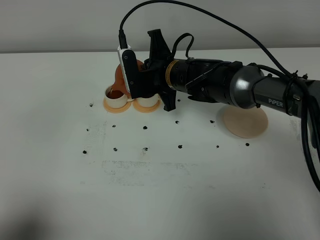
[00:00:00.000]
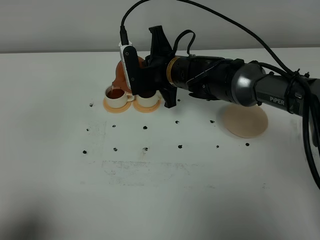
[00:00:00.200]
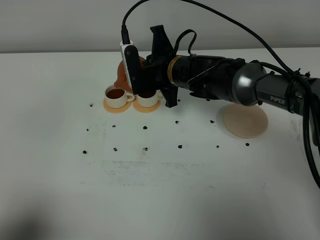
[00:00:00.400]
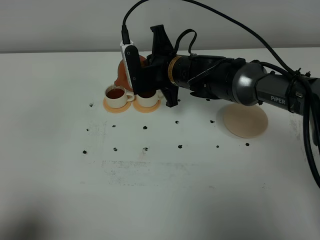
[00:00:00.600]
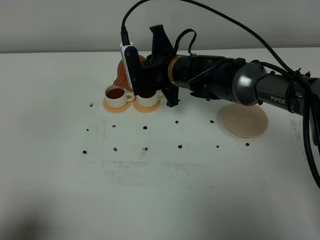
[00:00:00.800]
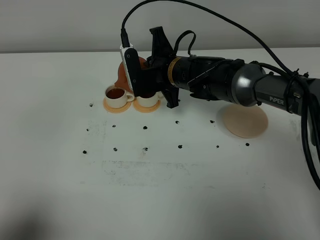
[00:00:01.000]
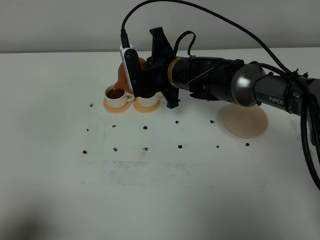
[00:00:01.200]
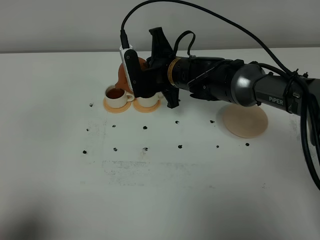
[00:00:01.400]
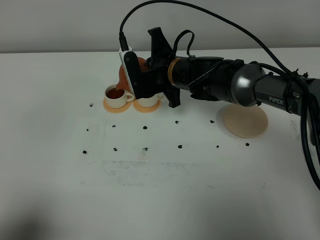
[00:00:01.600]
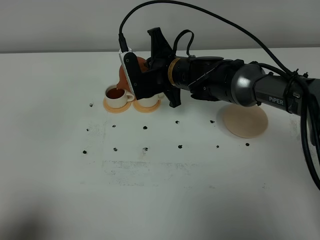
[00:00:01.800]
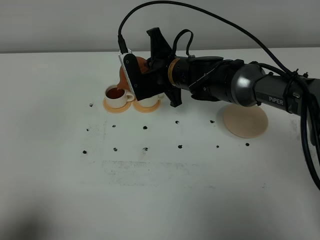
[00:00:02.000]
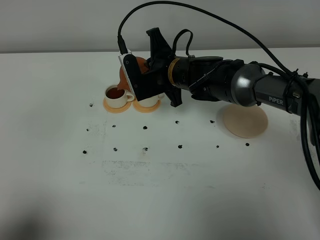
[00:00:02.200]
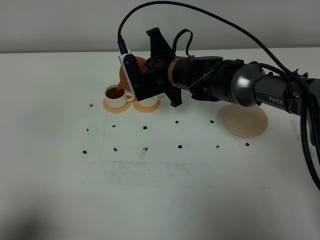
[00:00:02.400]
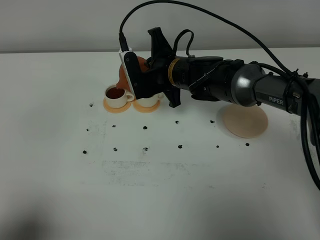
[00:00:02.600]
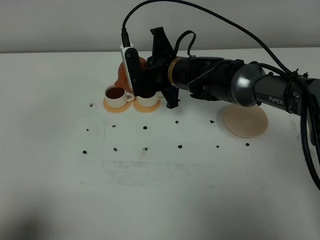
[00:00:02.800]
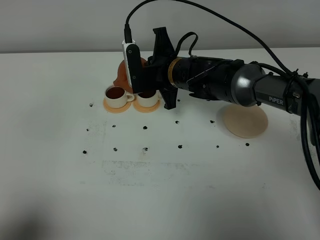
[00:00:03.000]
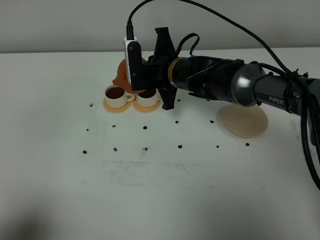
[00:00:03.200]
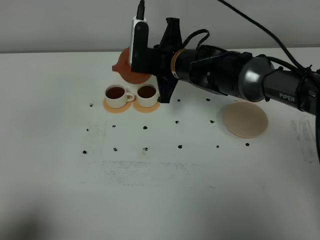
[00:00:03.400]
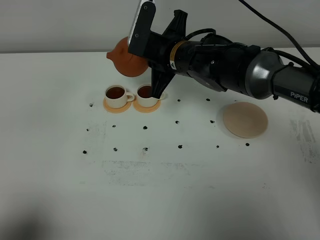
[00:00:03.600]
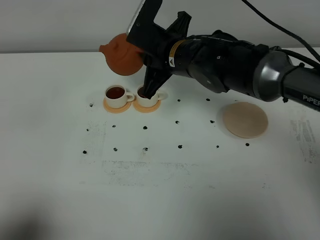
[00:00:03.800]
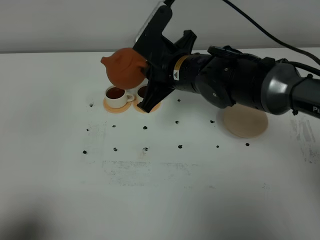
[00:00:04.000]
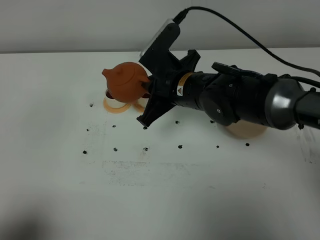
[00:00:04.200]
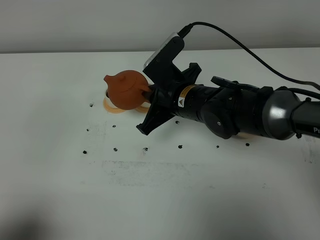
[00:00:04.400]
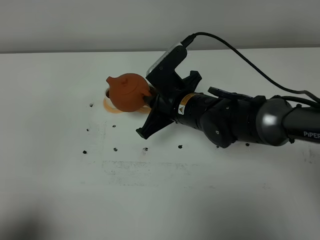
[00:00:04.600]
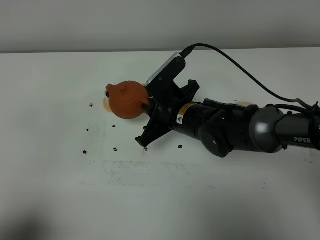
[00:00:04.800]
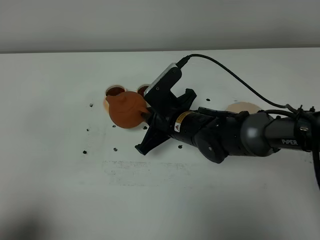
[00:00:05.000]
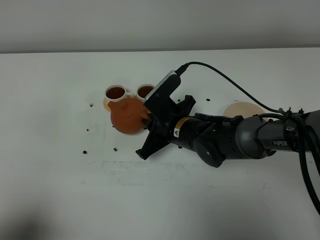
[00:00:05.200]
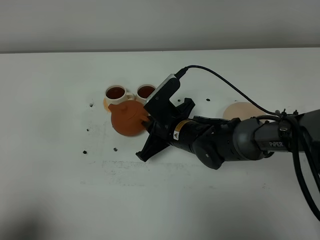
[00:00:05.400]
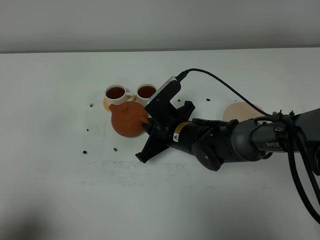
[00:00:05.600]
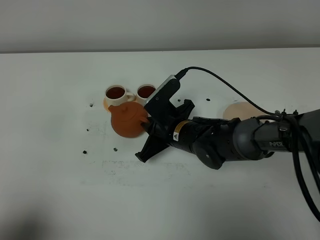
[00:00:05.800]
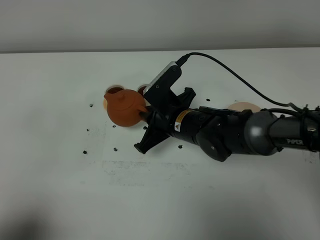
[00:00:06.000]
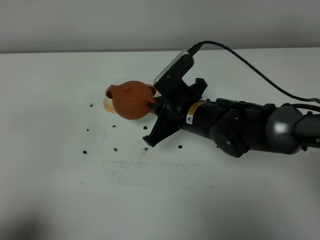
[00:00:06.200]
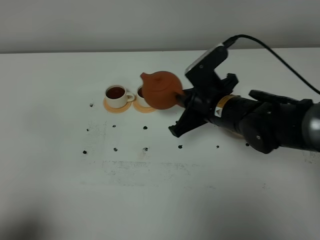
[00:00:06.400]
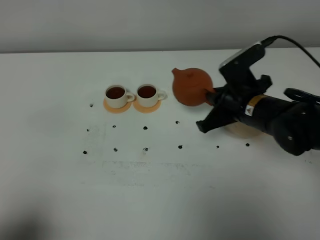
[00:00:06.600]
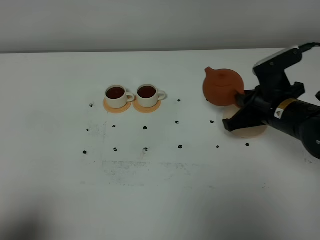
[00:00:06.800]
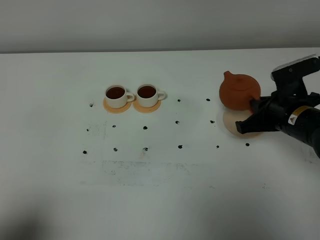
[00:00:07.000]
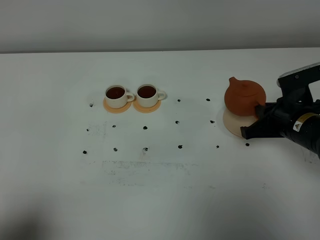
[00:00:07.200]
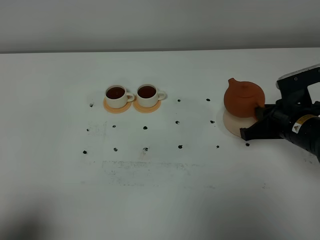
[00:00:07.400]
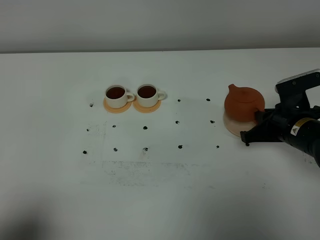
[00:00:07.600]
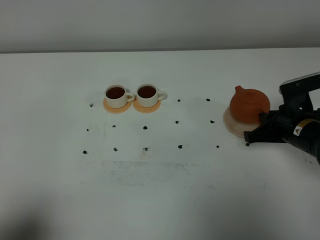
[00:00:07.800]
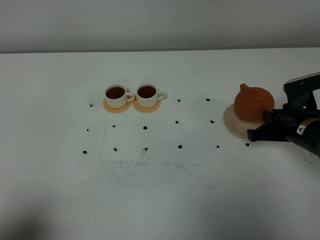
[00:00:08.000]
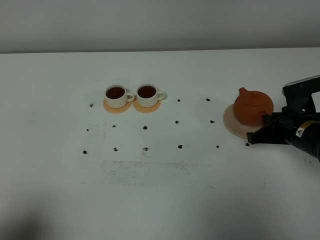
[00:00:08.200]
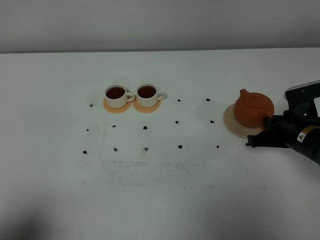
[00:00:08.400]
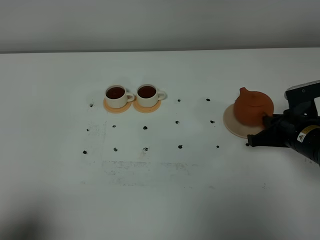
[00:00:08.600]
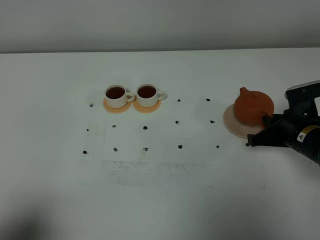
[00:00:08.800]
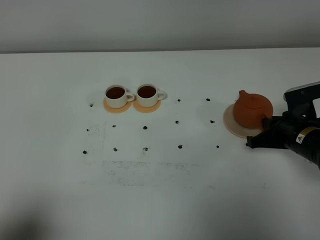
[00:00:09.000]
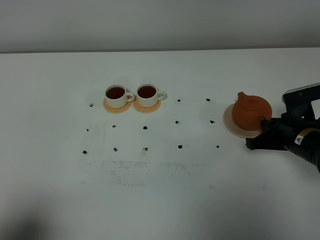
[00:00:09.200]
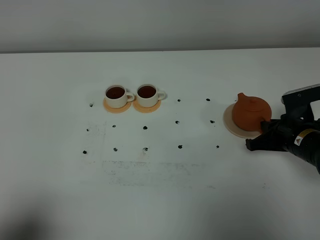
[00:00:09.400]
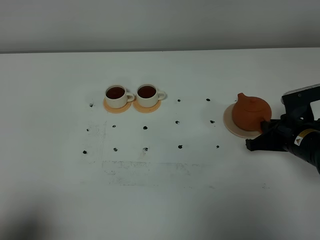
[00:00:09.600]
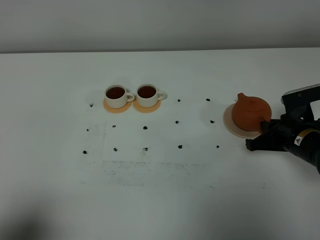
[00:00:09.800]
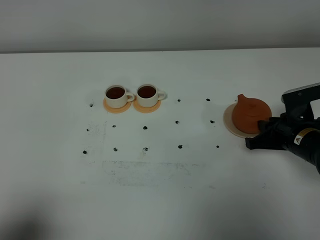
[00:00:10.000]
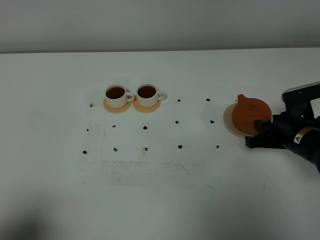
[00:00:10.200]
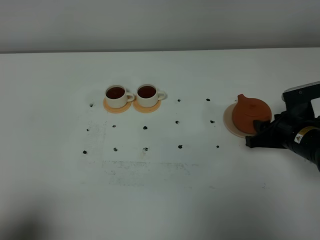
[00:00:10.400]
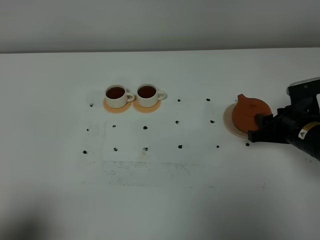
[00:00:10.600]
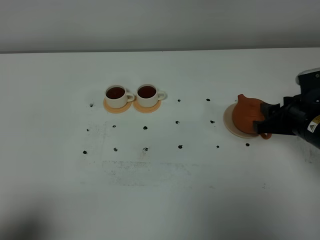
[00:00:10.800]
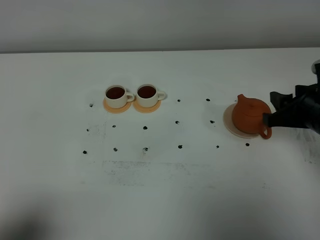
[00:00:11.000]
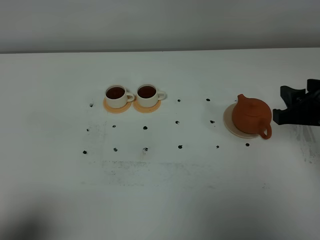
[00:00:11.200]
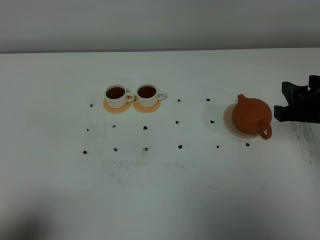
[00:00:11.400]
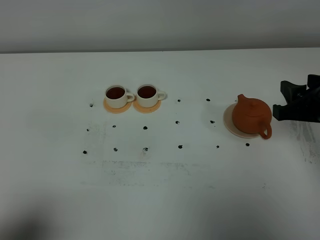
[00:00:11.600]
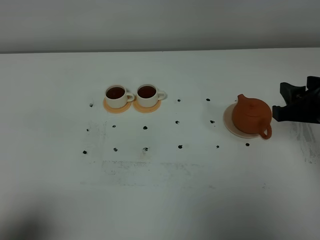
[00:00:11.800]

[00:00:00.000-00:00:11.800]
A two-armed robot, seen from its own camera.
Task of the whole recording: grasp the brown teapot and pour the tea into the two white teacups one by one, put the brown teapot back in its original place.
Step, 00:00:00.000 to 00:00:03.200: Pour tea into the teacup with the right gripper.
00:00:00.000 to 00:00:01.400: The two grippers keep their place.
00:00:01.400 to 00:00:03.000: The grippers make only small movements.
00:00:03.000 to 00:00:04.400: The right gripper goes approximately 10 cm backward.
00:00:06.000 to 00:00:07.400: The right gripper heads to the right, covering approximately 20 cm.
00:00:07.400 to 00:00:08.800: The grippers stay close to where they were, moving slightly.
00:00:08.800 to 00:00:10.400: The right gripper opens.
00:00:10.400 to 00:00:11.800: The right gripper travels upward by some 10 cm.

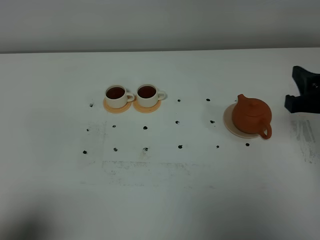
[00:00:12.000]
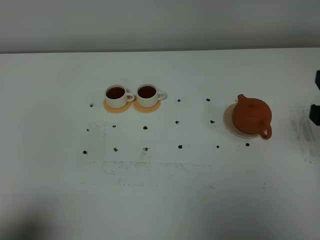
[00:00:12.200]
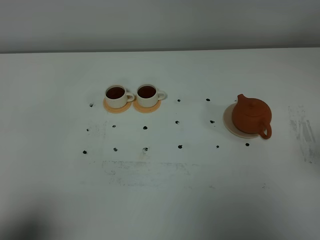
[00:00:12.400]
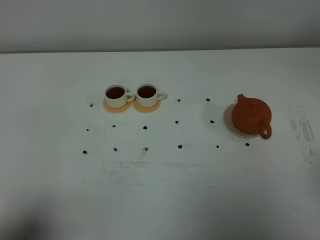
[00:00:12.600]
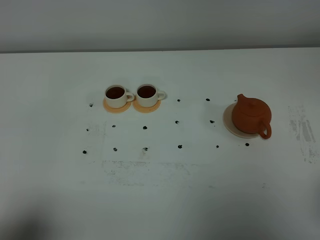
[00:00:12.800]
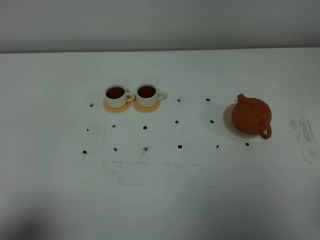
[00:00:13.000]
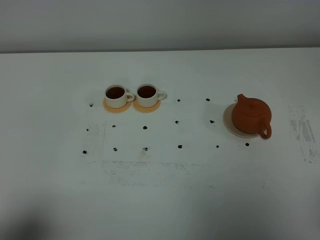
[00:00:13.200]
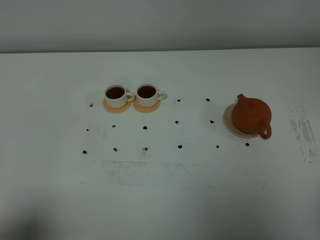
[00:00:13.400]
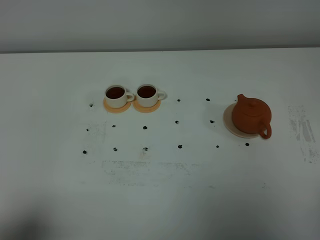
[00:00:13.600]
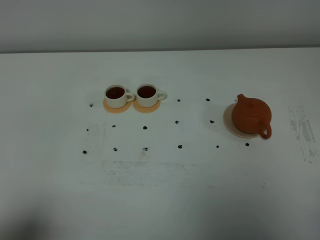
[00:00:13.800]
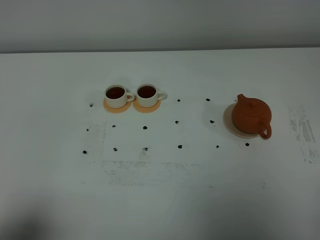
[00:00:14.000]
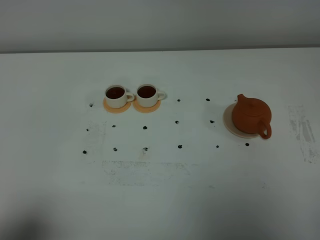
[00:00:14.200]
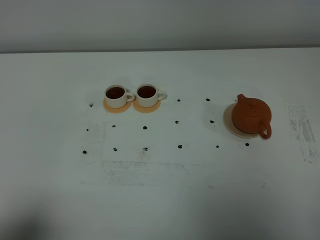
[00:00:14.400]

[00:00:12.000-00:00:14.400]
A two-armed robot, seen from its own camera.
Task of the whole recording: grasp the brown teapot and pour the tea into the two white teacups one by one, put the brown teapot back in its original place.
00:00:12.000 to 00:00:13.200: The right gripper heads backward, covering roughly 20 cm.
